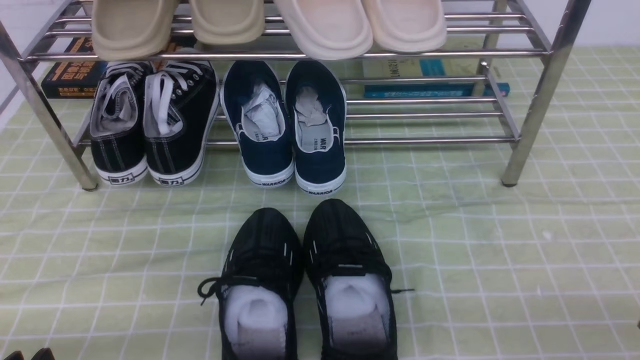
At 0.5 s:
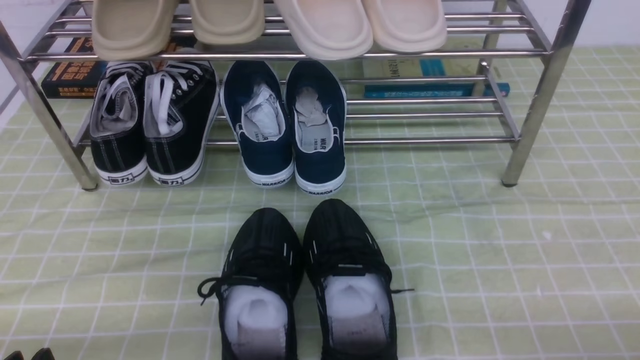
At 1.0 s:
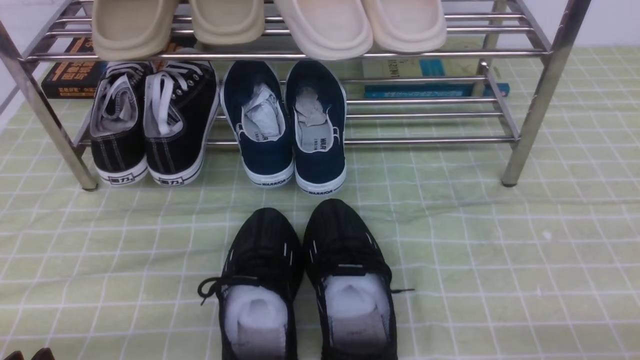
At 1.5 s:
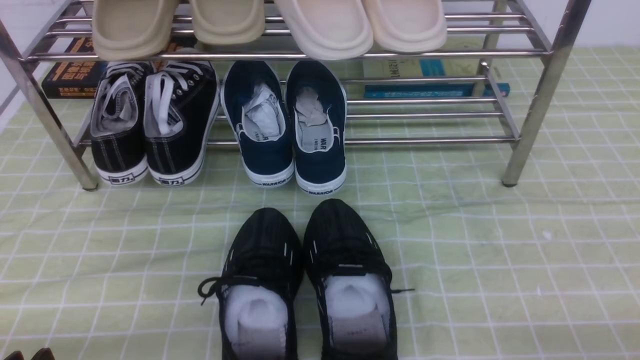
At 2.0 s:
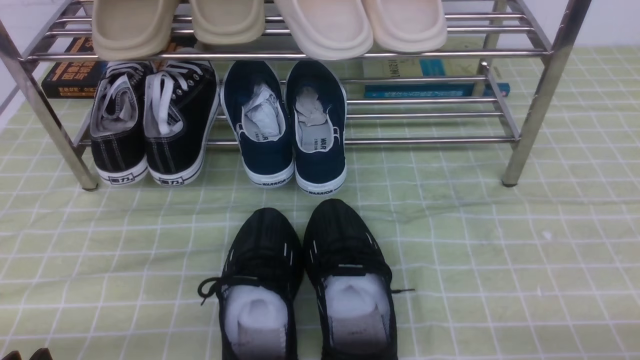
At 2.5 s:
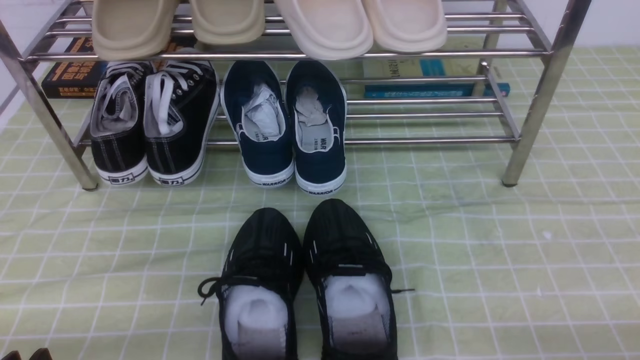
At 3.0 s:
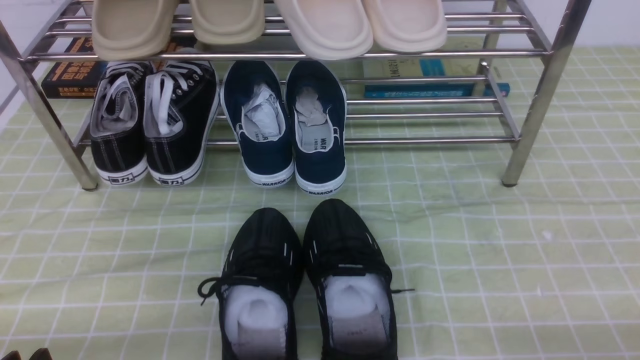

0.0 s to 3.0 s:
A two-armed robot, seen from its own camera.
1.5 to 3.0 s: Both grippers stay about where they are.

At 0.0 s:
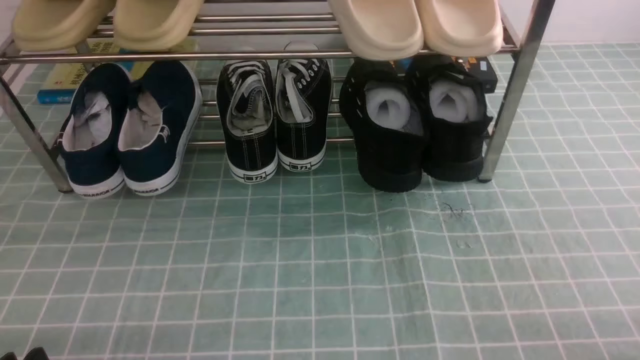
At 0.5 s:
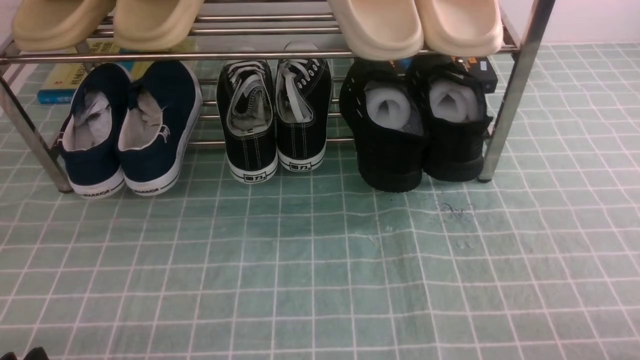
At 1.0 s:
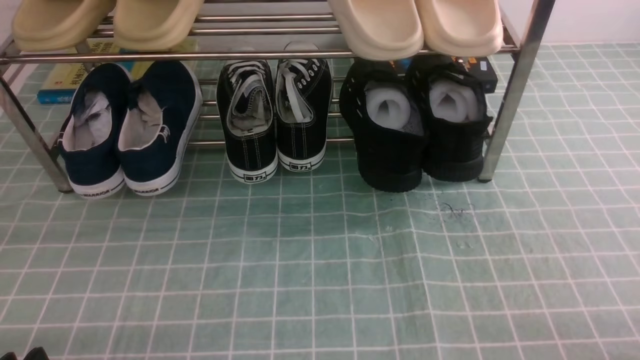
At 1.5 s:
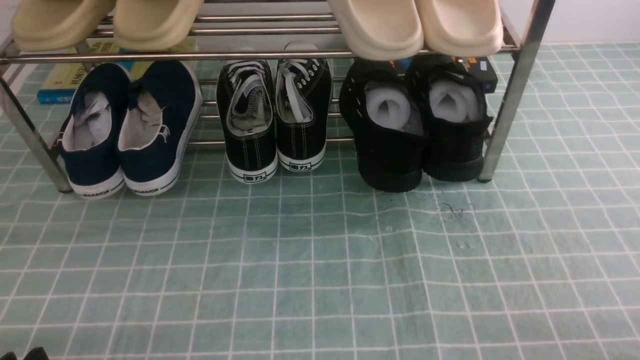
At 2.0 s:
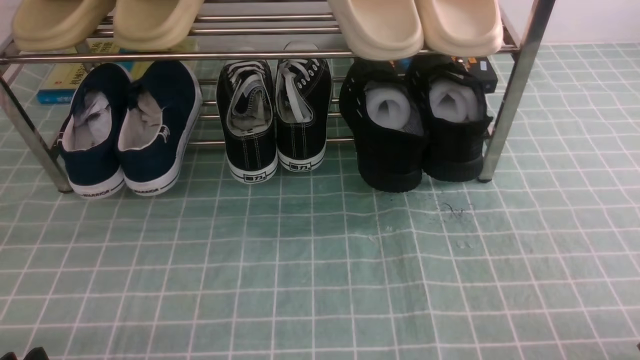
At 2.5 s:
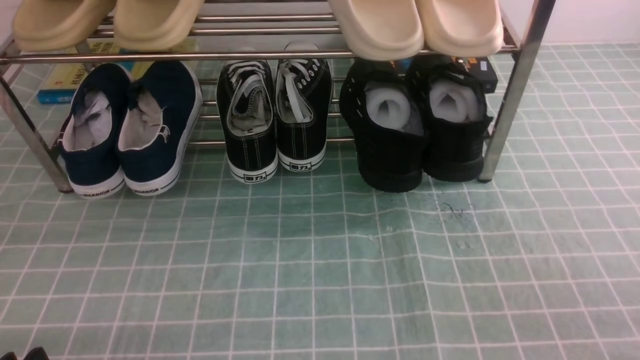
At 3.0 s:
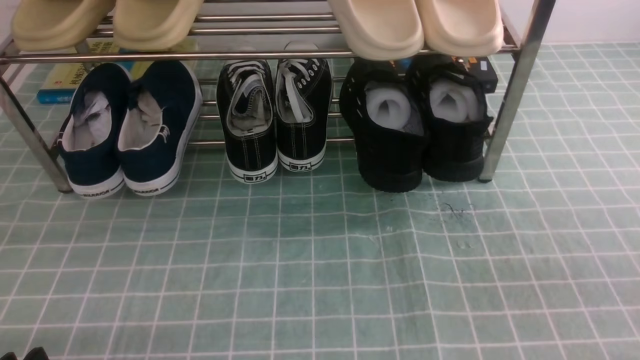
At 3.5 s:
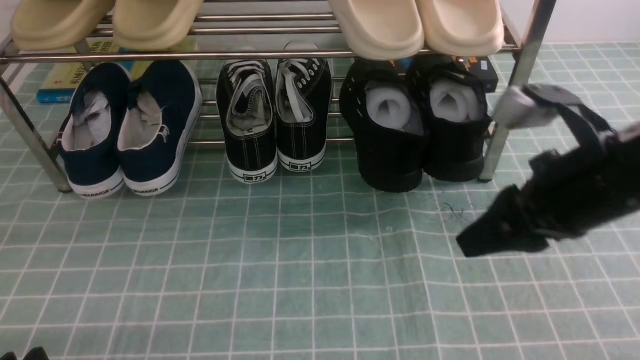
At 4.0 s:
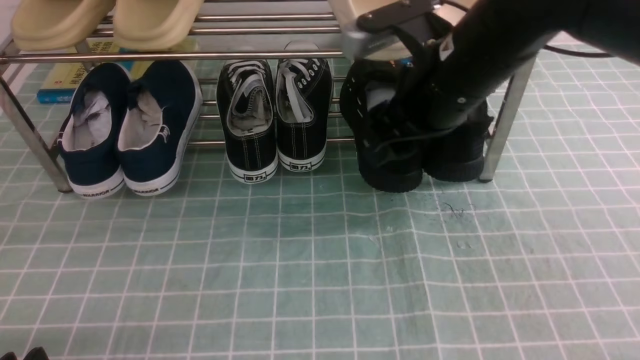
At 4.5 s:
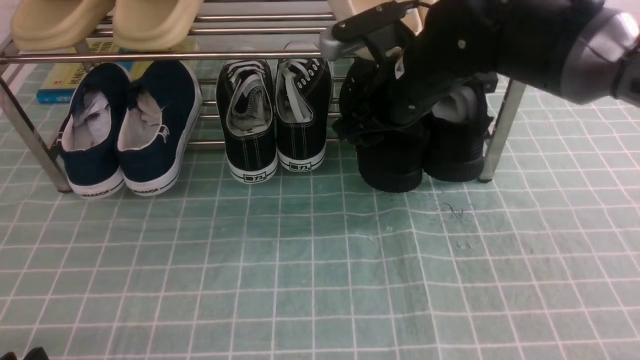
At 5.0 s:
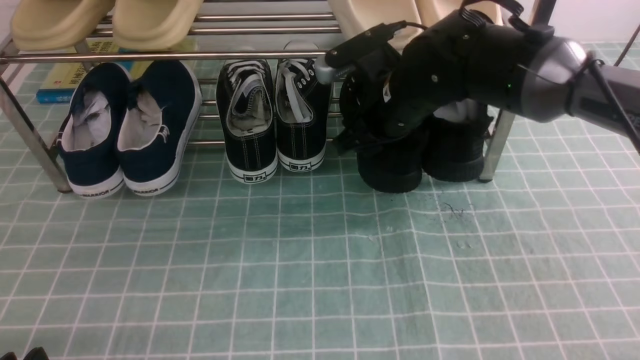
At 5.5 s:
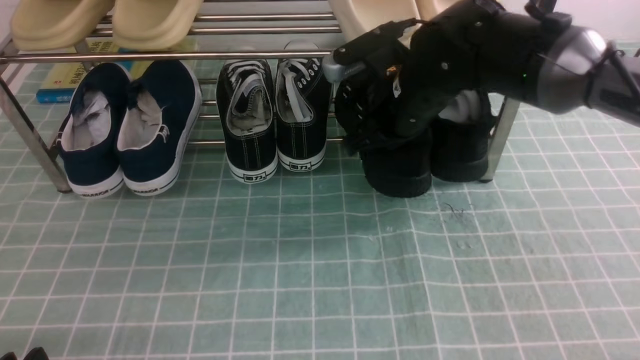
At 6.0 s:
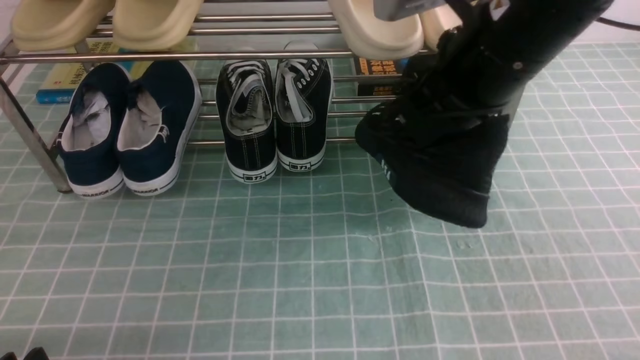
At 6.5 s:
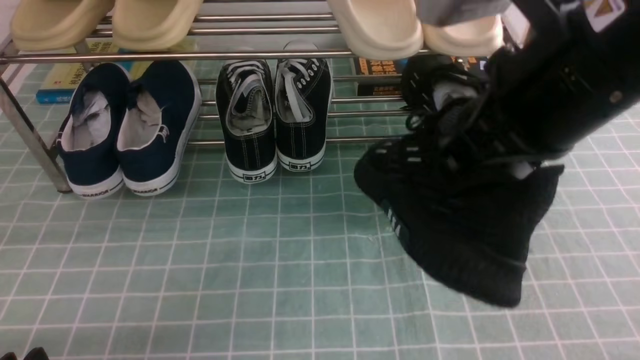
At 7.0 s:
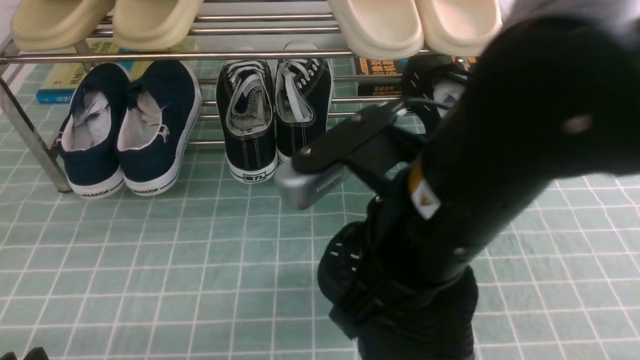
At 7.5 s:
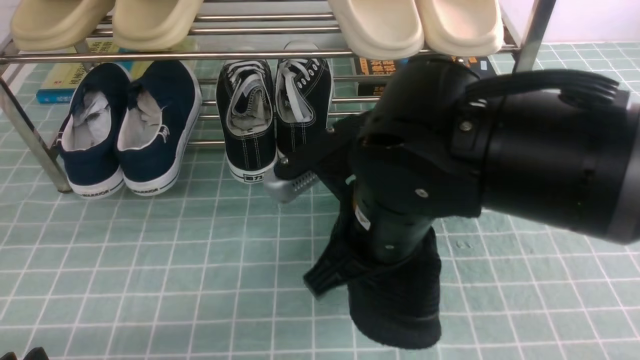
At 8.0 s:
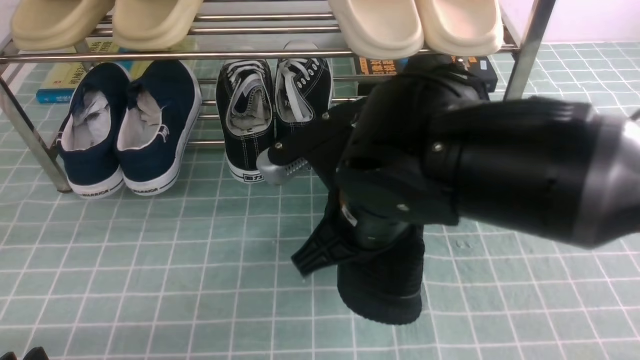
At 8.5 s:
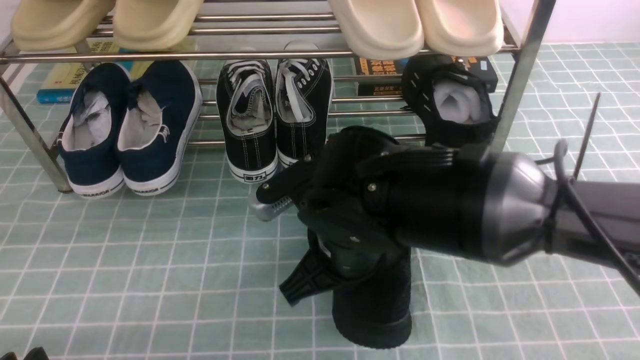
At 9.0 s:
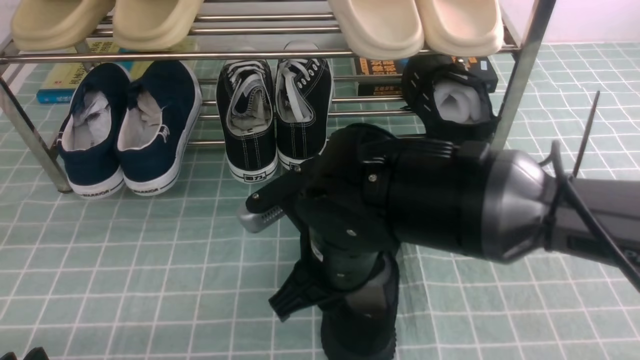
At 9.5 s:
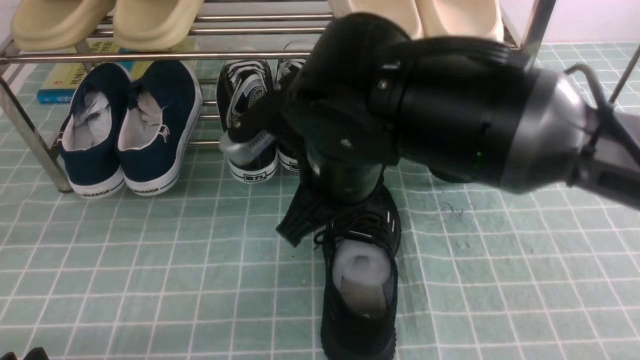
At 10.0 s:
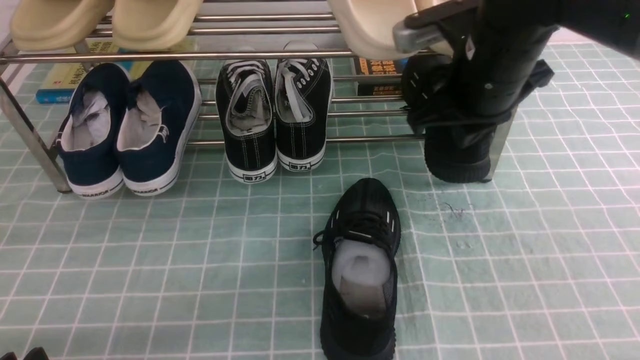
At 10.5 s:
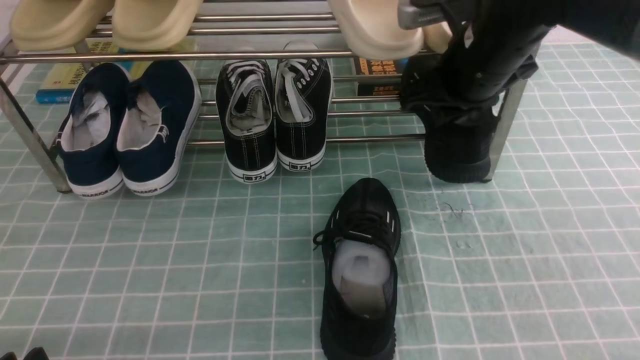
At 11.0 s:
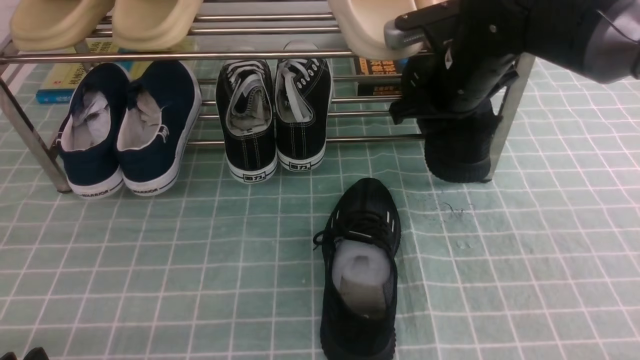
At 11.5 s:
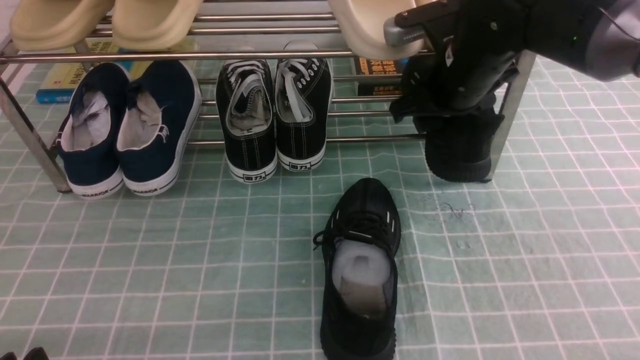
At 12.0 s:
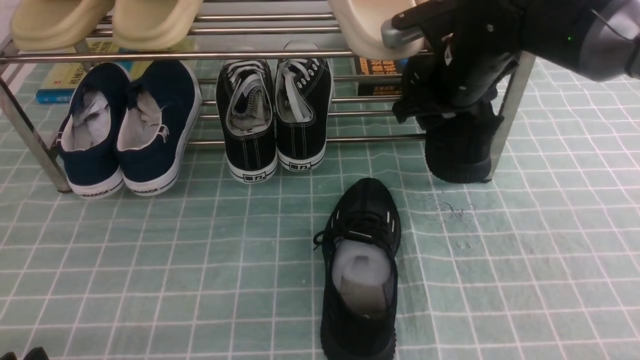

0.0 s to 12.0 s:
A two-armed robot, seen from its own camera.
Step, 0.0 to 5.0 s: use the right arm to clamp a shoe on the right side of the shoe rack.
Step, 5.5 to 9.5 s: use the right arm to take out the clamped shoe from the shoe rack and put it down.
2.0 to 4.0 s: The right gripper heads forward, to the left and upward, covering about 35 cm, and opens.
4.0 to 6.0 s: The right gripper closes.
6.0 to 8.0 s: The right gripper is displaced to the left, downward and backward by about 15 cm.
8.0 to 10.0 s: The right gripper is displaced forward and to the right by approximately 15 cm, and opens, then closes again.
10.0 to 12.0 s: The right gripper is displaced forward by approximately 5 cm, and opens up.

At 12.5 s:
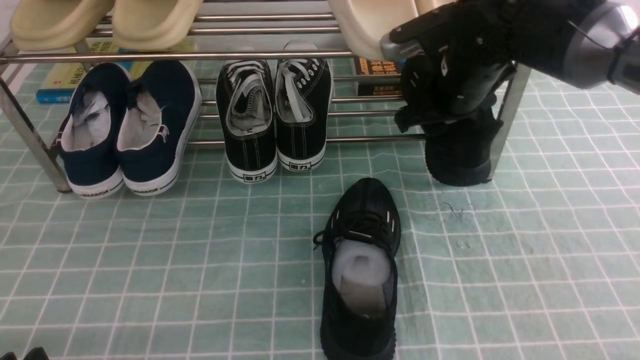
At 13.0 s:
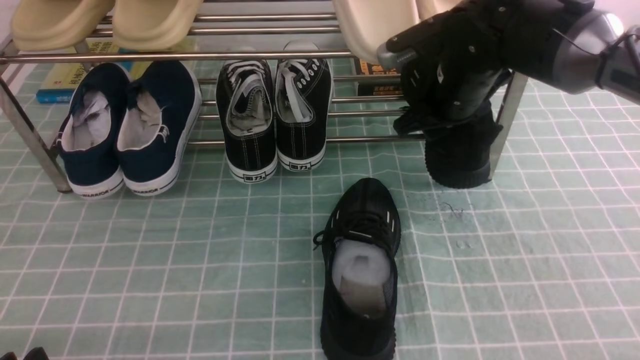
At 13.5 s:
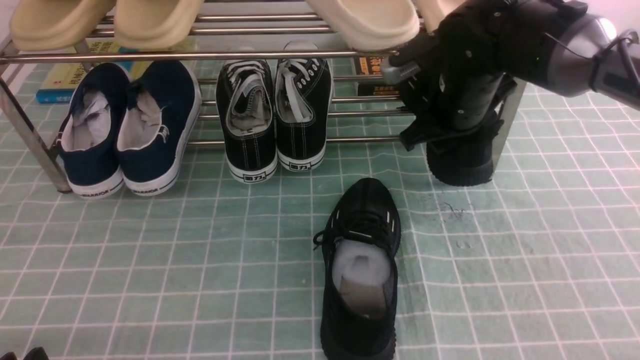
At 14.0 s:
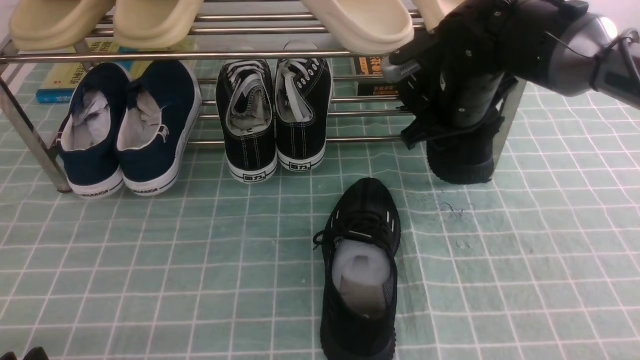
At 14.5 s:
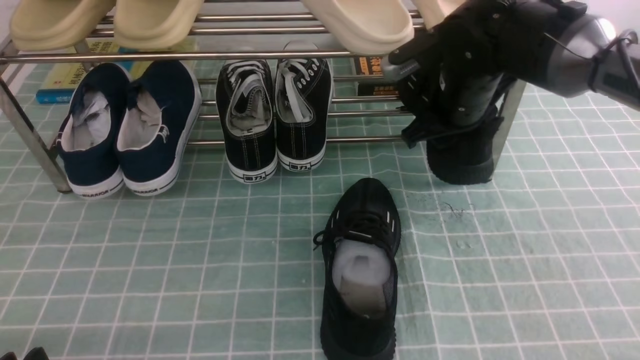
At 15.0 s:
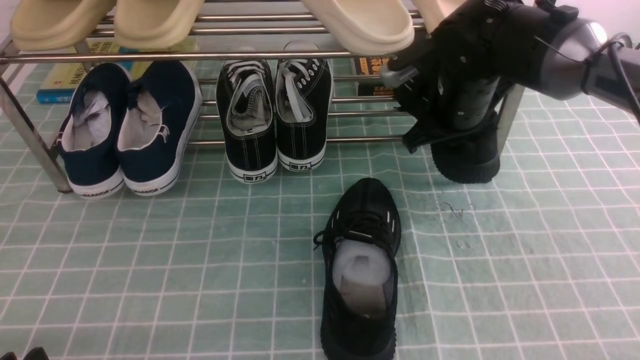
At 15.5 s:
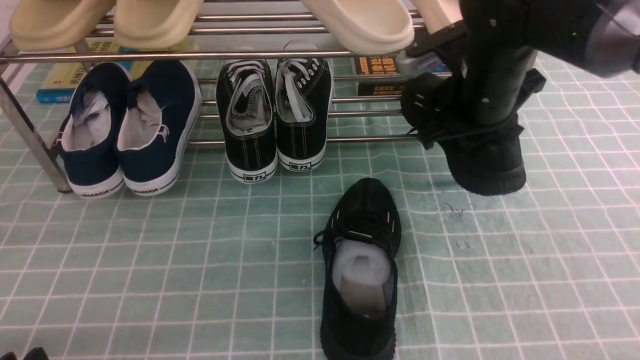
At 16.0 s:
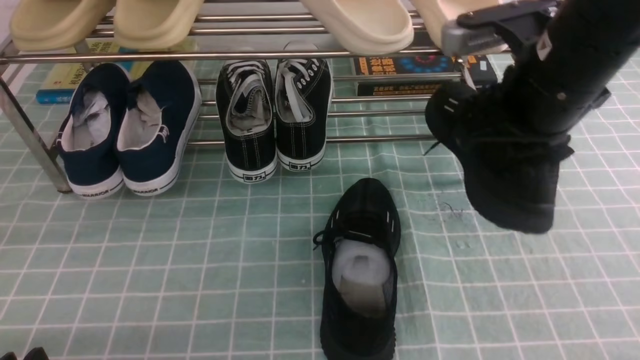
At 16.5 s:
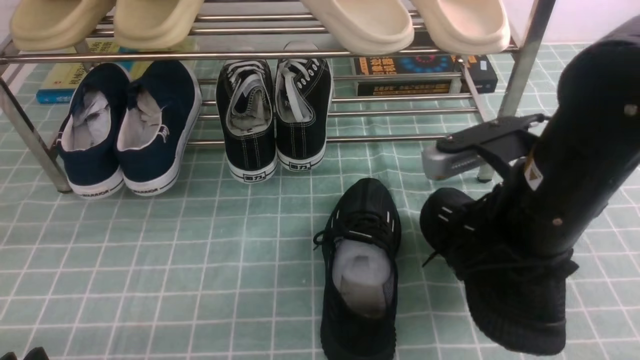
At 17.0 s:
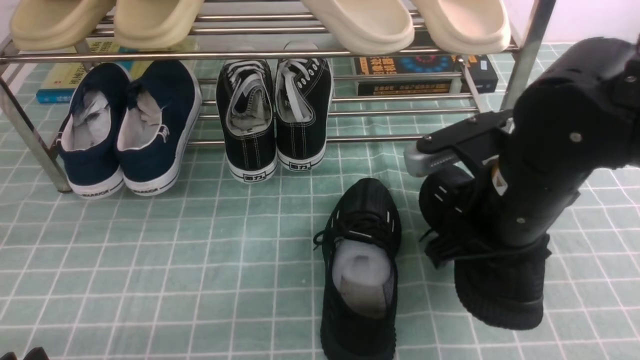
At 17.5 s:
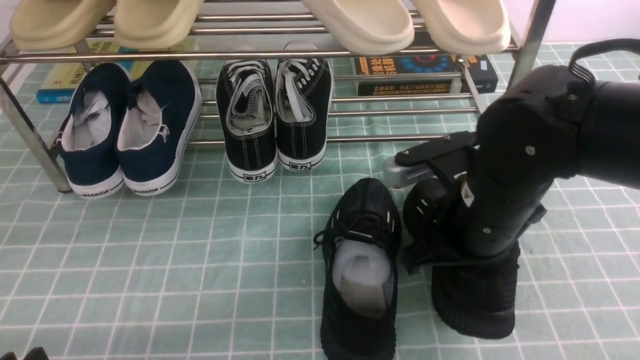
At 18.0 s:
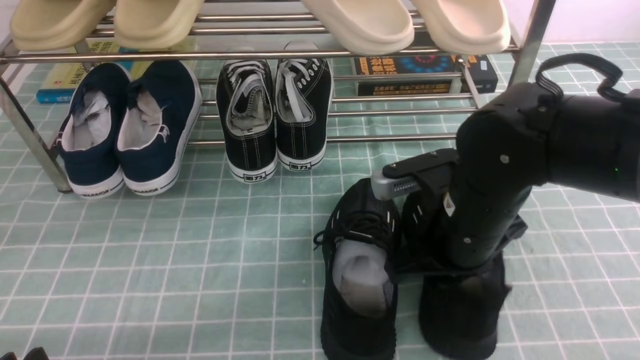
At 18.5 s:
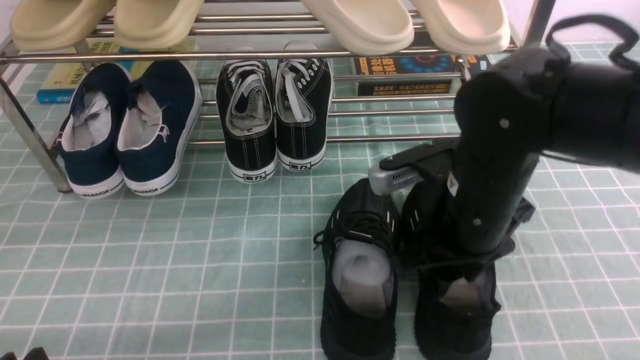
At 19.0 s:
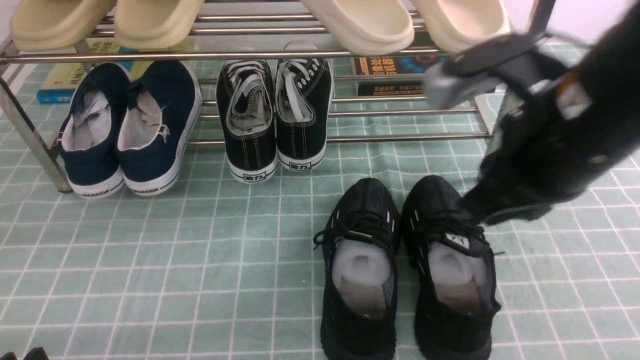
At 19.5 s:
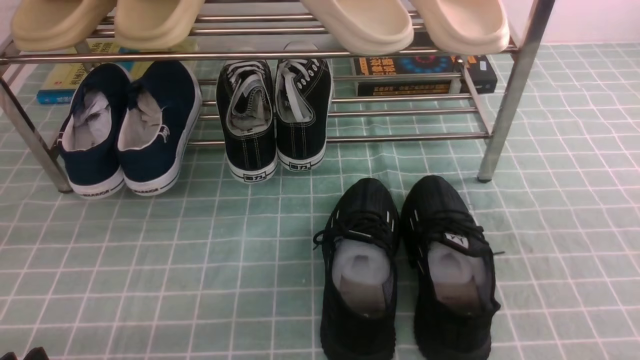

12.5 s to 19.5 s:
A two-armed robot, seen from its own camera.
Step, 13.5 to 18.5 s: use the right arm to take out the clamped shoe from the shoe rack and put it down.
12.5 to 14.5 s: The grippers make only small movements.
14.5 to 16.0 s: The right gripper travels backward and upward by about 15 cm, and closes its fingers.
16.0 to 17.5 s: The right gripper goes some 10 cm downward and backward.
17.5 to 19.5 s: The right gripper travels upward, backward and to the right by about 25 cm, and opens, then closes once more.
